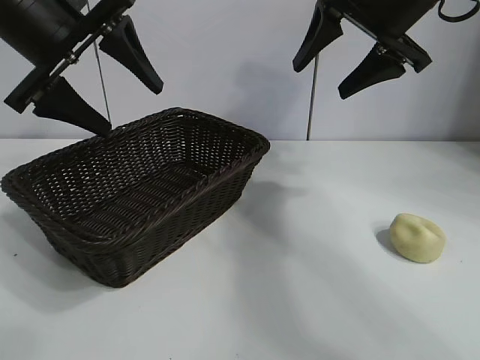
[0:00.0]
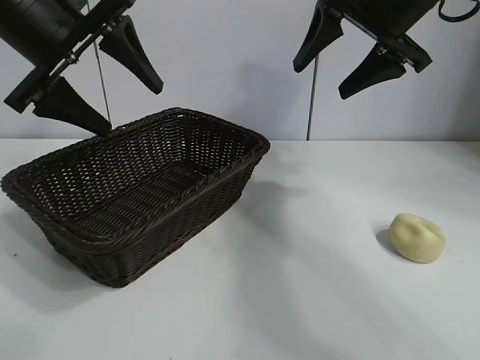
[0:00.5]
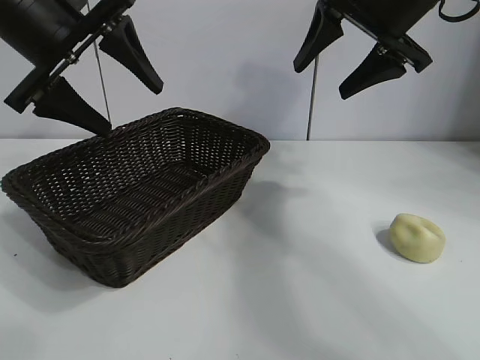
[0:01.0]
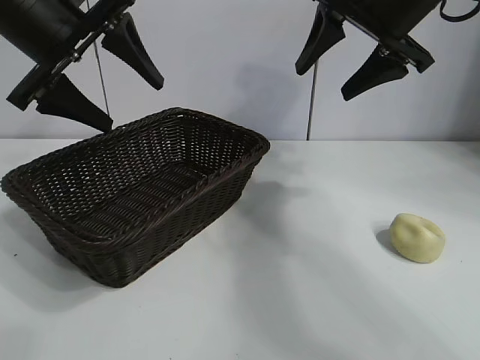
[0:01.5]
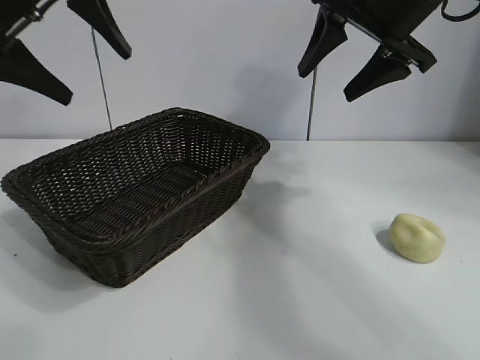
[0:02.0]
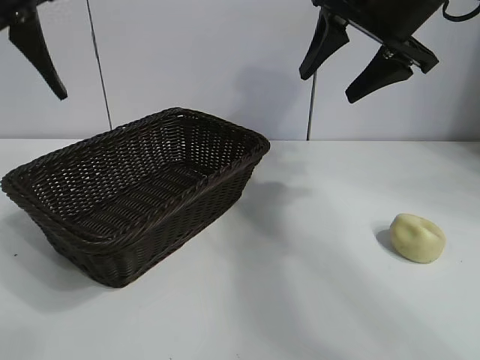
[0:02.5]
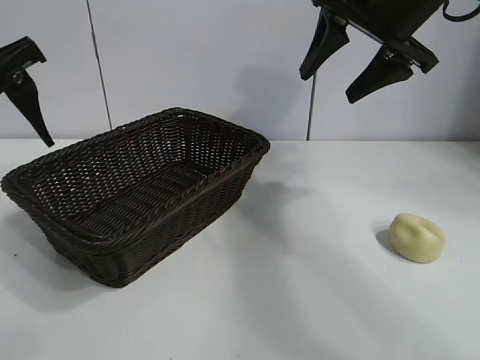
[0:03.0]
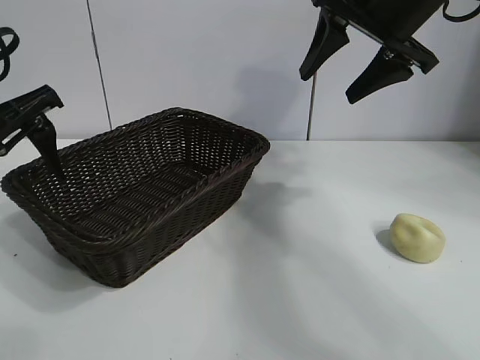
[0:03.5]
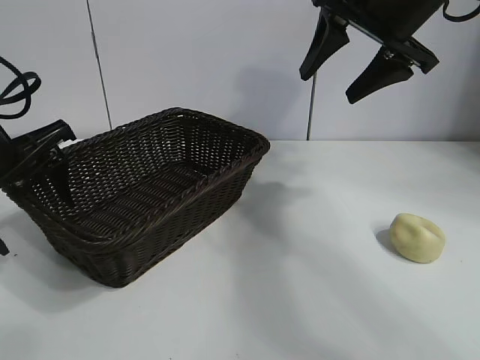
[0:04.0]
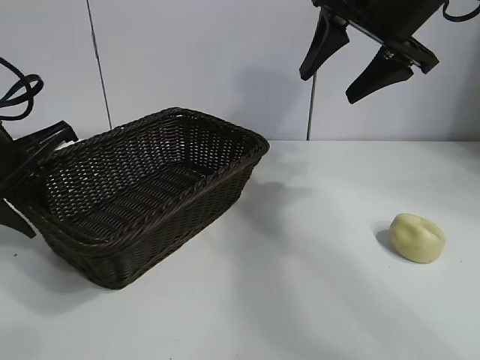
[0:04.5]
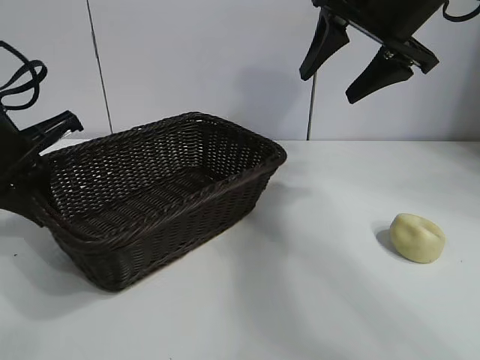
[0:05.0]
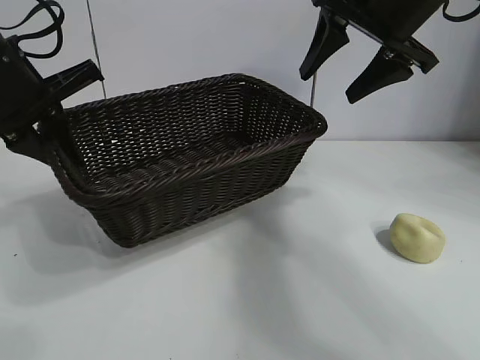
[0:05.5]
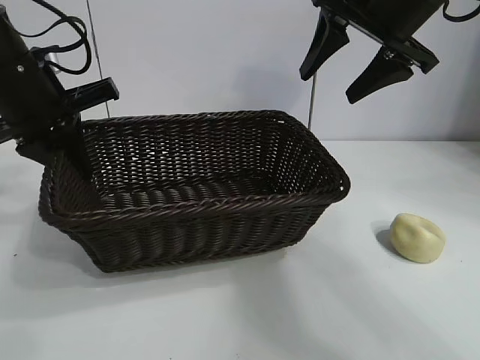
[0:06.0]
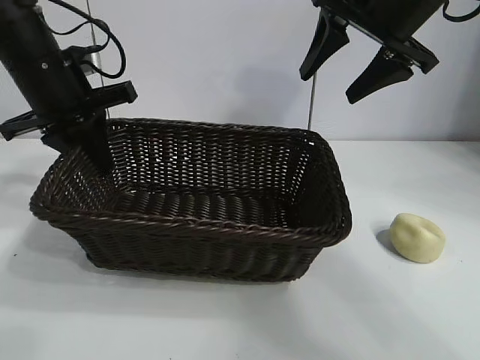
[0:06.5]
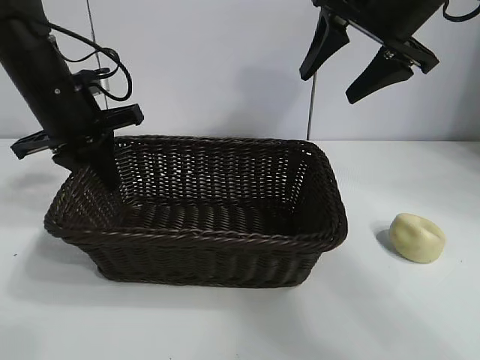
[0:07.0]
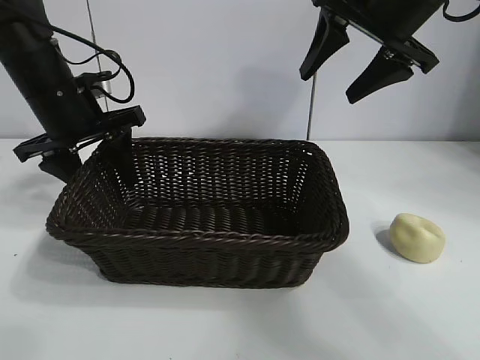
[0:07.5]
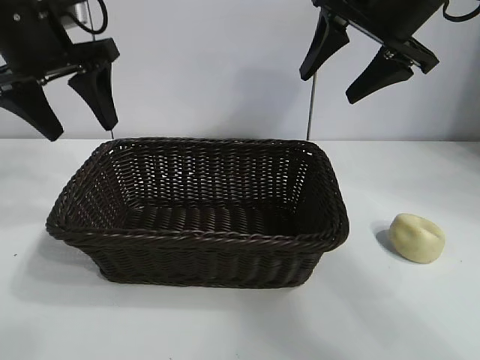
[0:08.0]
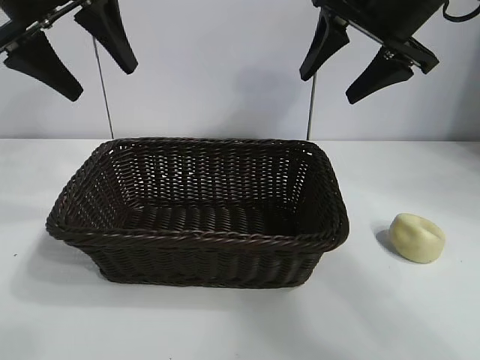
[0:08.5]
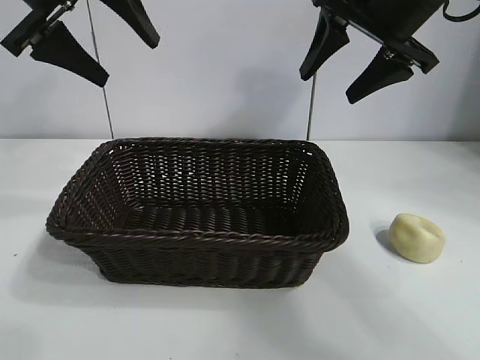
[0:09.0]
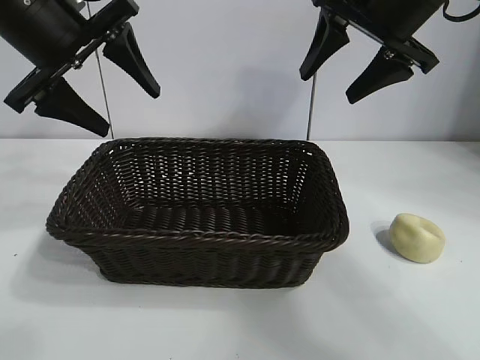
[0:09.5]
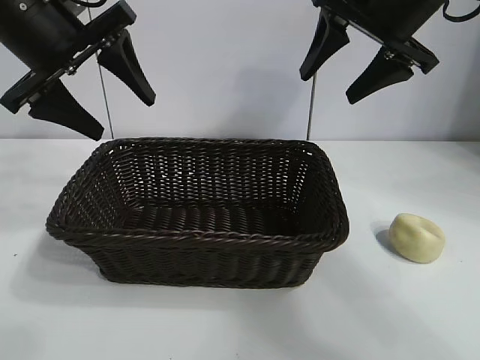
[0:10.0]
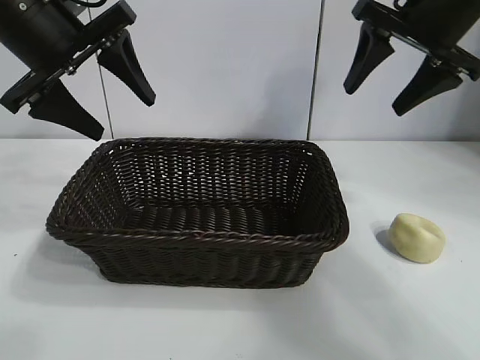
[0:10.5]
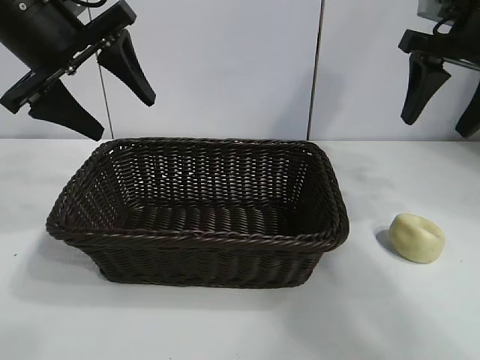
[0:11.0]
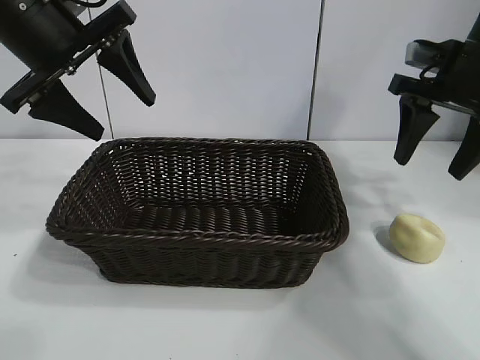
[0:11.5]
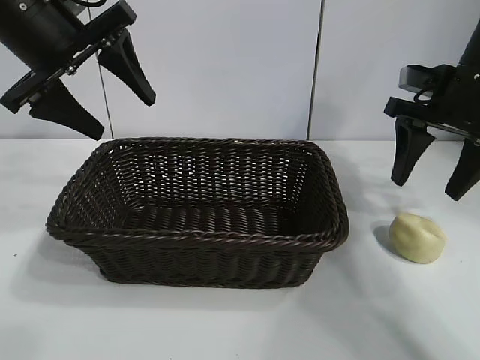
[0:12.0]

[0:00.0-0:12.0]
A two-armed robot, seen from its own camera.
Task of the whole recording: pick up the egg yolk pastry and put it into the basket.
Step, 0:01.5 to 0:04.5: Grasp the basket with left gripper.
Step, 0:05.0 to 0:07.5: Place the basket in the center of view with left gripper.

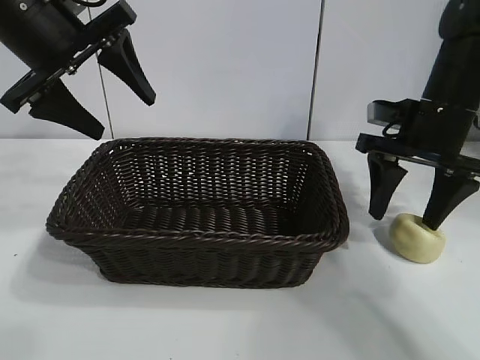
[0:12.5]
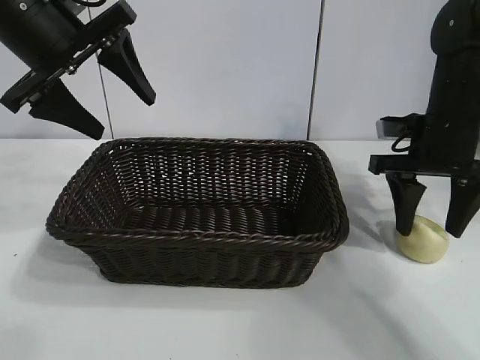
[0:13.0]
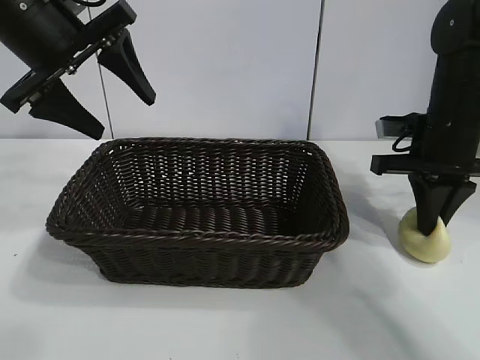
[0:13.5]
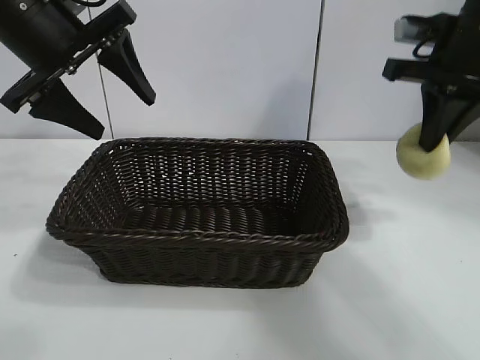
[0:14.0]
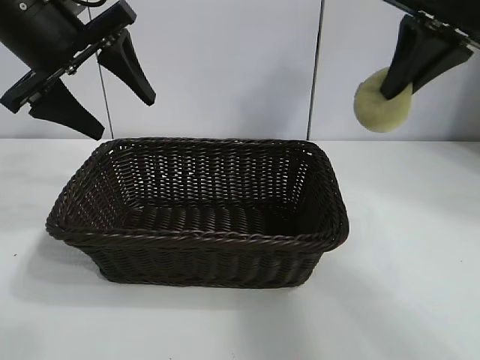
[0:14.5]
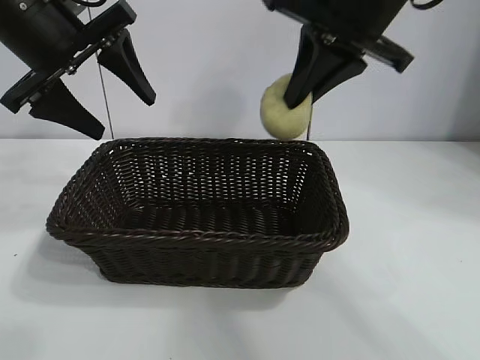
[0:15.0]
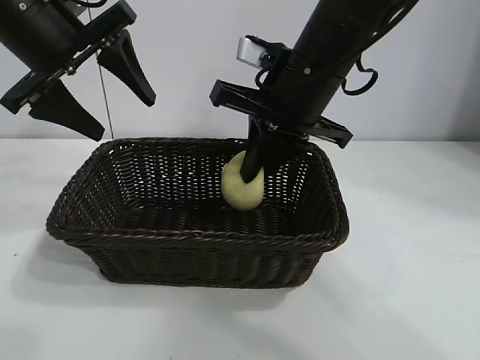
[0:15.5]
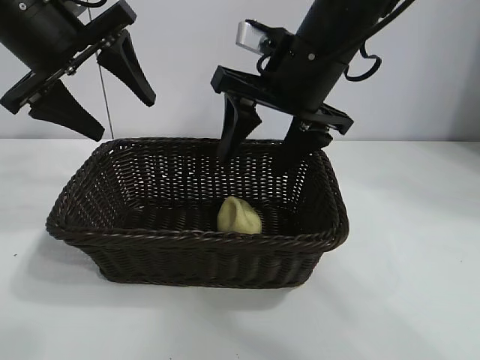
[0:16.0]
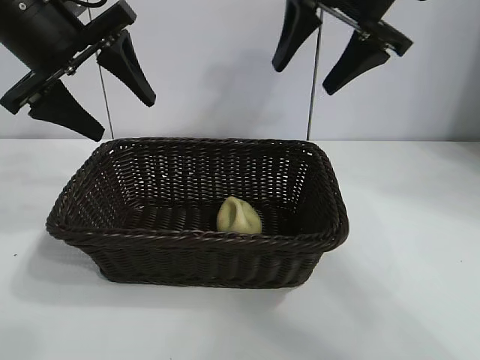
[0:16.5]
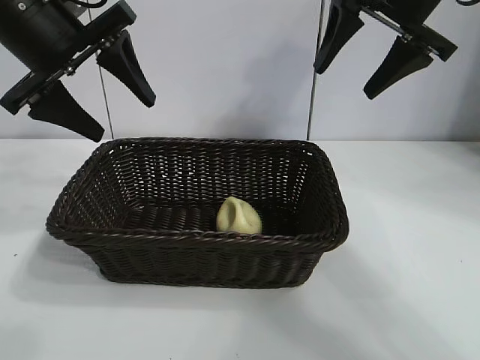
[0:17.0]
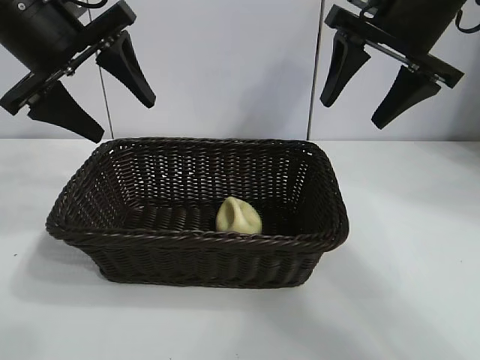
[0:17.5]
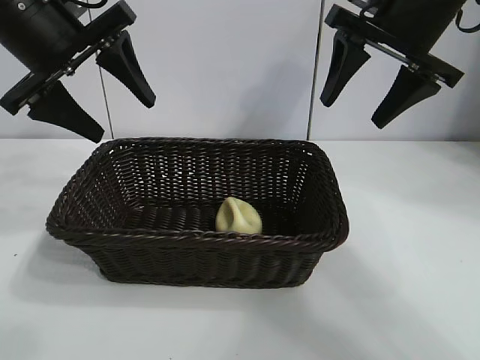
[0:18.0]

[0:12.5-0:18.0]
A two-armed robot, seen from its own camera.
Task of the whole recording: pick up the egg yolk pastry and put it into the basket.
Step, 0:13.5 to 0:15.5: Place the egg yolk pastry in the basket with right gripper.
